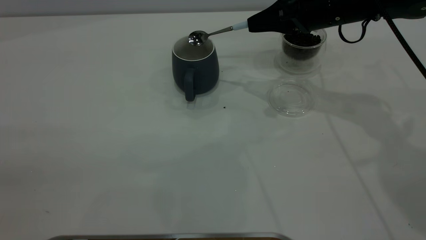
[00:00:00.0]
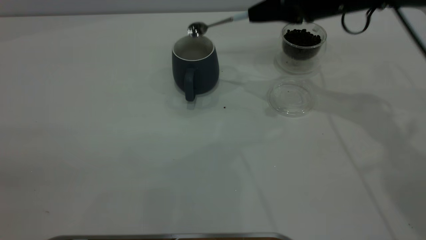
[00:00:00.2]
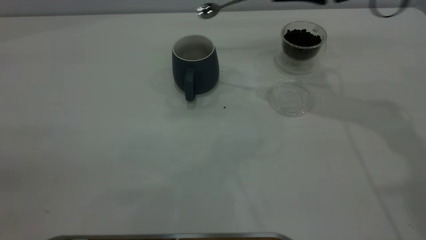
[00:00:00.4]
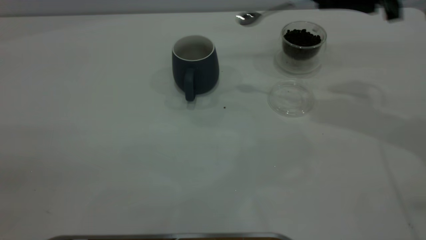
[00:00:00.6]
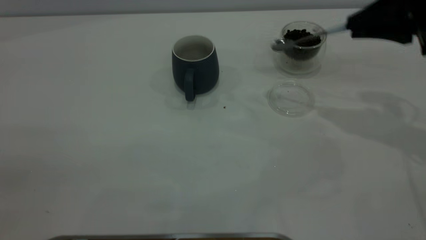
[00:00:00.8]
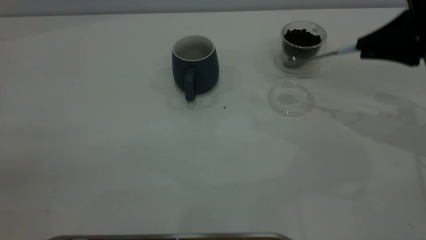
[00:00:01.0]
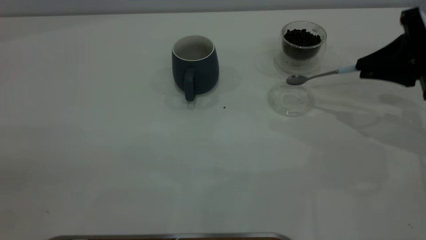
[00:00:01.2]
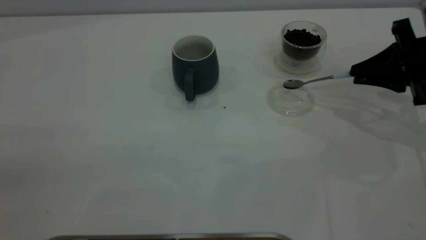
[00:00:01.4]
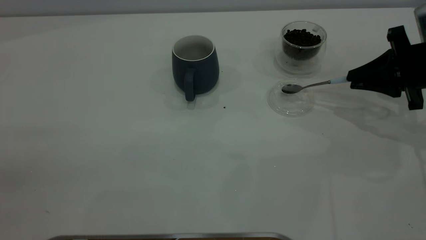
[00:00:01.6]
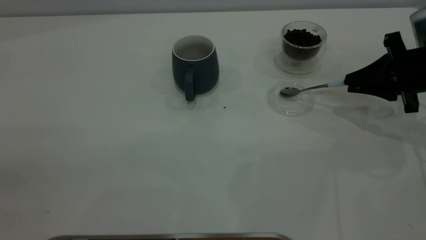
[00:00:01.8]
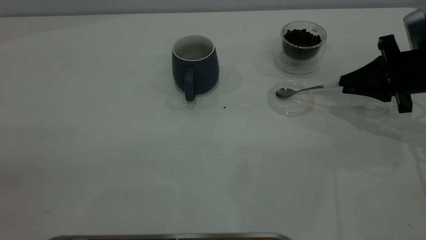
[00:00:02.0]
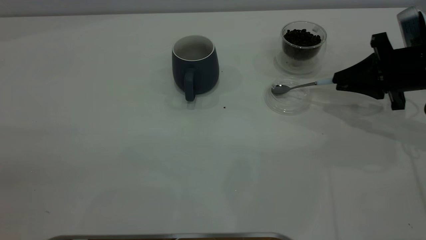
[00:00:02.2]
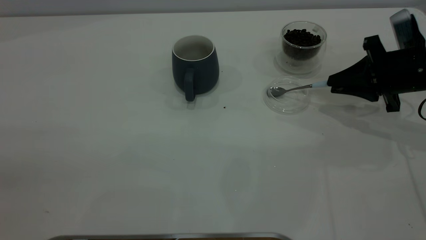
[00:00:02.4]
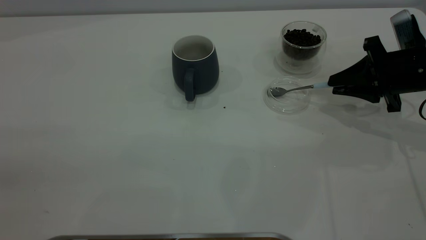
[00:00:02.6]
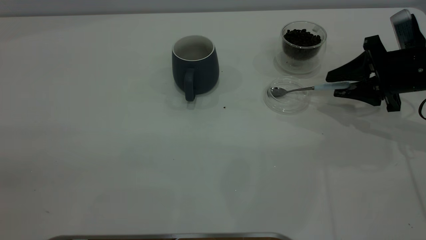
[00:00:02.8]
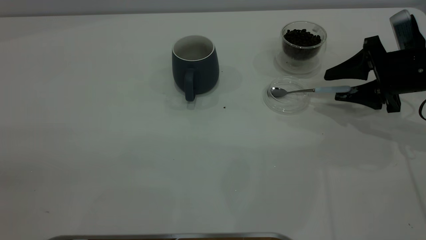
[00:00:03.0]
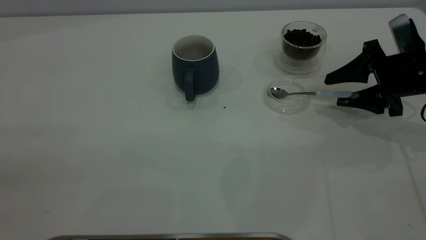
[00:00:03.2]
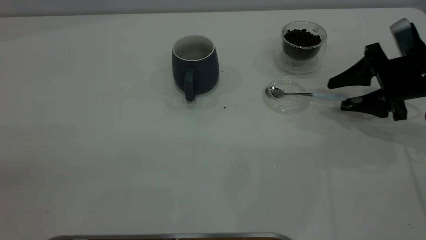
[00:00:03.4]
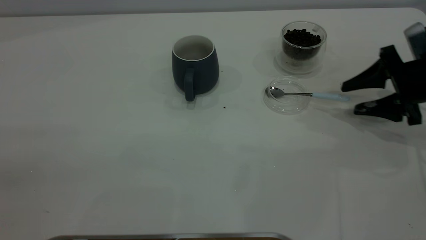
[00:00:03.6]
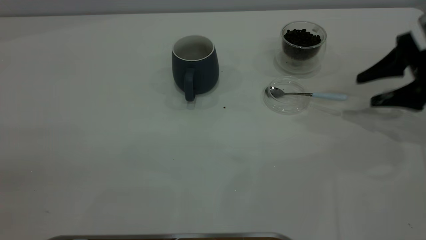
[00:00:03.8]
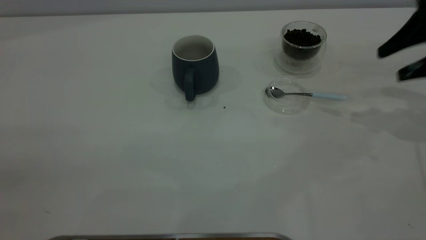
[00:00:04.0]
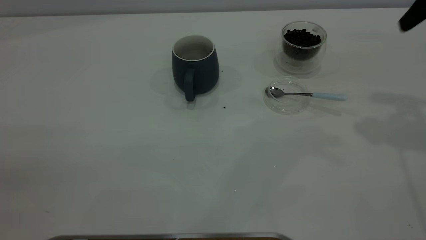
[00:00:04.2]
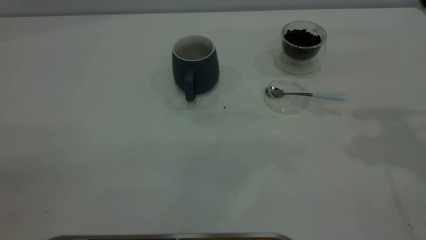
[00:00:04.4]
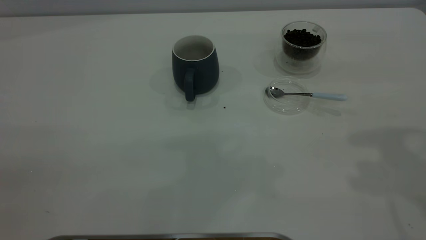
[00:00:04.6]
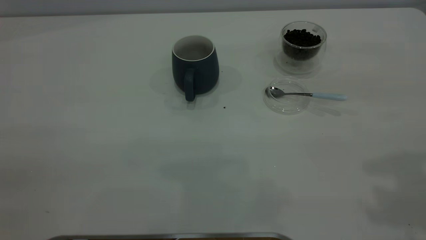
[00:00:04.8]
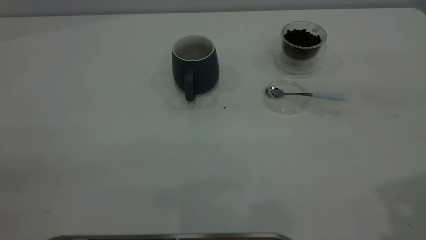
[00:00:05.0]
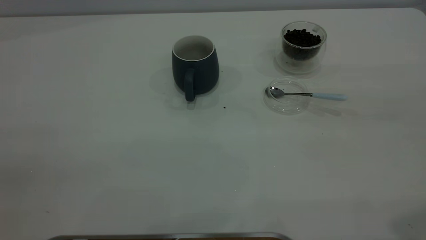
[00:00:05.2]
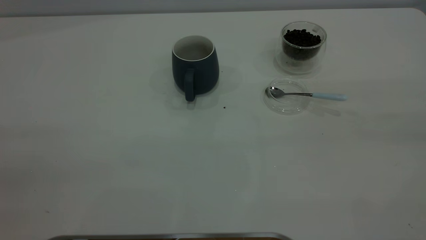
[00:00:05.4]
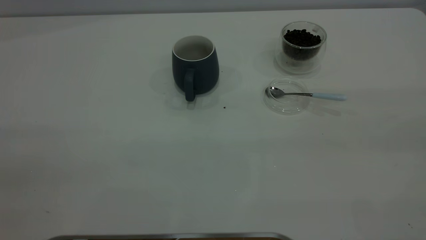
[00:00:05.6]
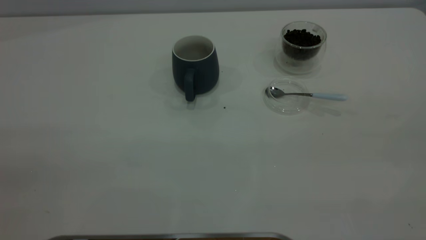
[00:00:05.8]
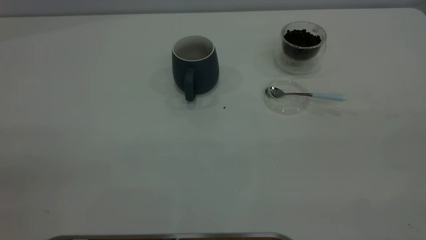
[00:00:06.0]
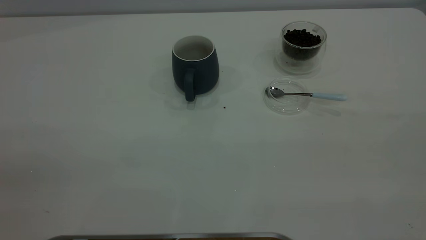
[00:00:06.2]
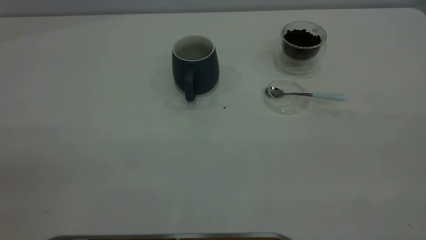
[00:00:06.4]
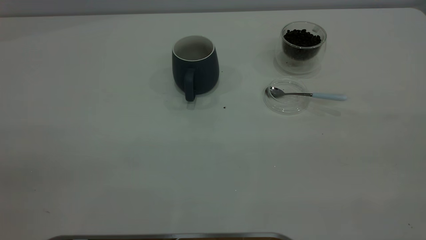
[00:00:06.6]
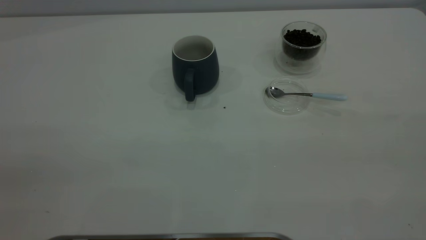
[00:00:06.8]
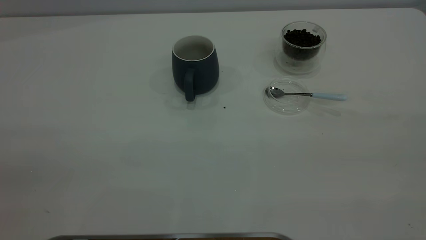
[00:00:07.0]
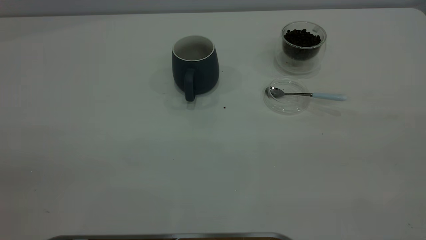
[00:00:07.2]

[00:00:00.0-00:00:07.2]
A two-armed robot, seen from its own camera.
Task of the whole recording: the left gripper place the grey cup in the center of the table, the right gripper take the blue spoon from the cup lid and scoop out the coffee beans from the coffee cup and put them into the grey cup, the right gripper put the spoon back into the cup lid.
Step, 00:00:00.4 to 00:00:03.6: Place the spoon back in its original place.
00:00:00.0 to 00:00:01.4: The right gripper travels to the right and backward by roughly 15 cm.
00:00:01.4 to 00:00:02.8: The right gripper opens.
00:00:02.8 to 00:00:04.4: The right gripper heads upward, covering approximately 25 cm.
